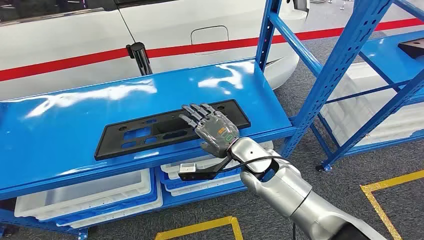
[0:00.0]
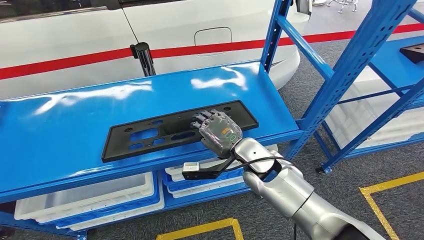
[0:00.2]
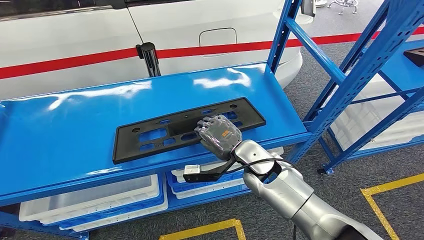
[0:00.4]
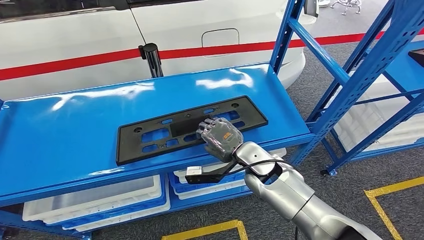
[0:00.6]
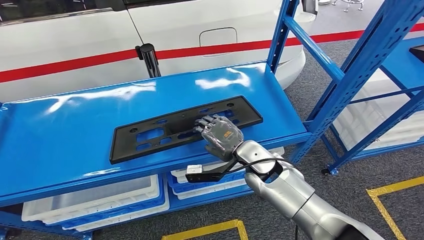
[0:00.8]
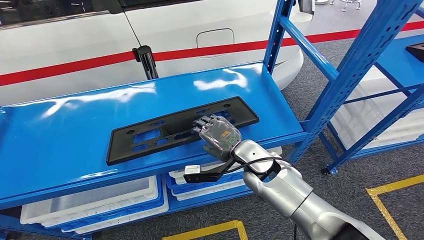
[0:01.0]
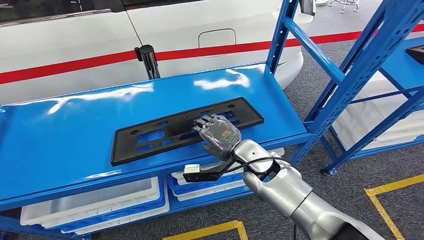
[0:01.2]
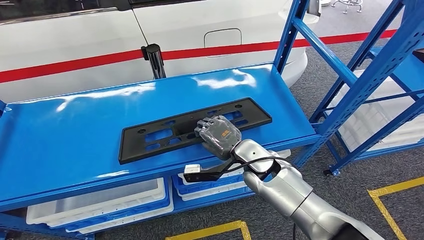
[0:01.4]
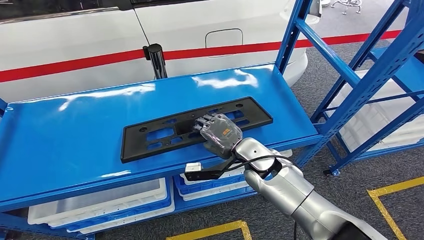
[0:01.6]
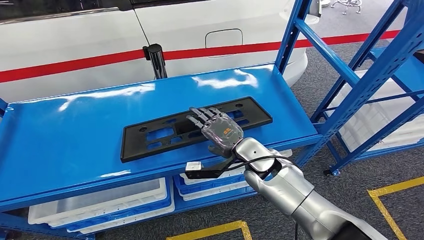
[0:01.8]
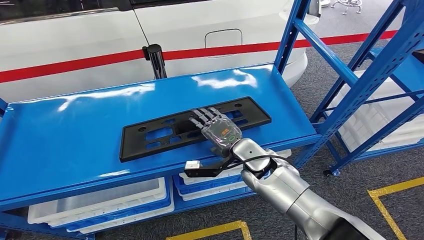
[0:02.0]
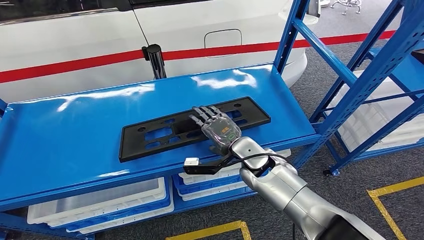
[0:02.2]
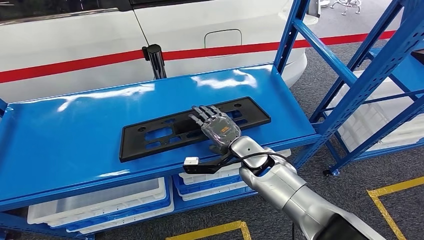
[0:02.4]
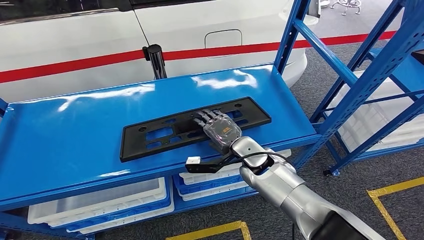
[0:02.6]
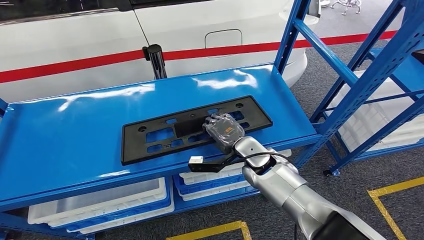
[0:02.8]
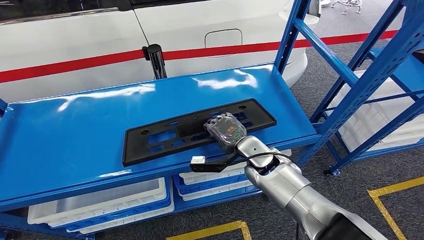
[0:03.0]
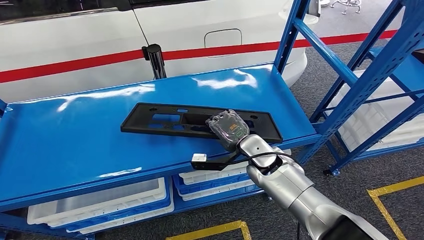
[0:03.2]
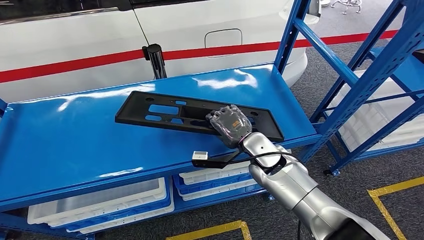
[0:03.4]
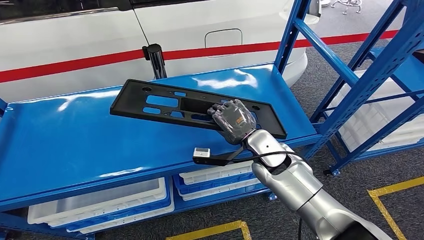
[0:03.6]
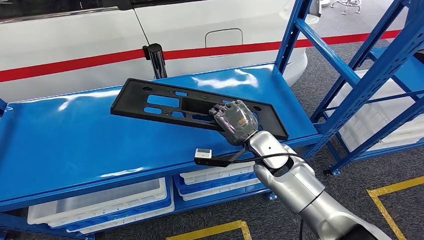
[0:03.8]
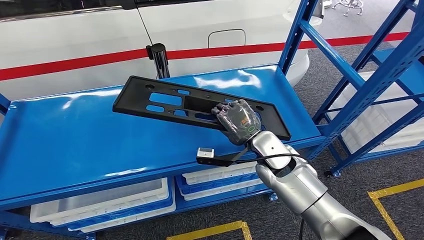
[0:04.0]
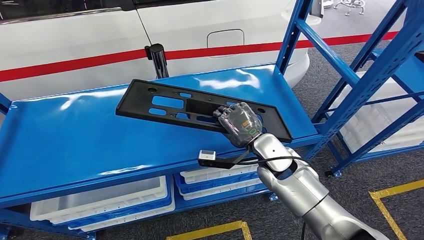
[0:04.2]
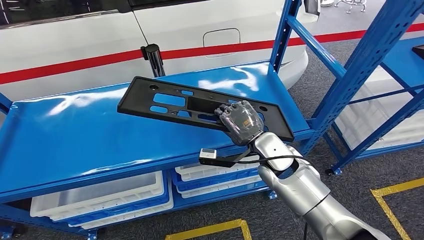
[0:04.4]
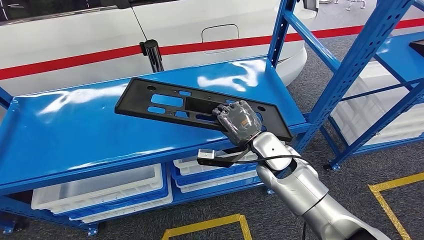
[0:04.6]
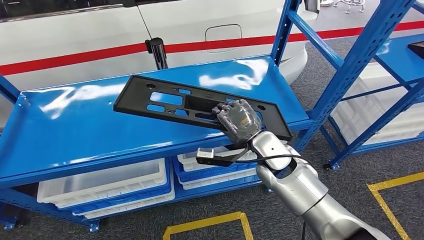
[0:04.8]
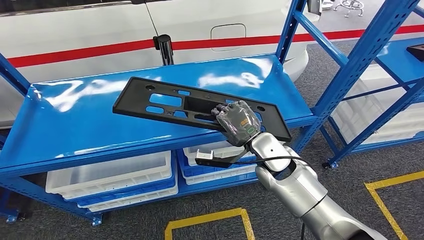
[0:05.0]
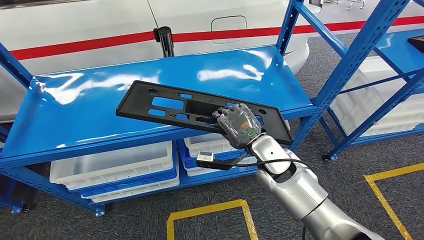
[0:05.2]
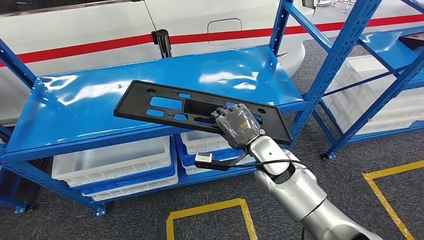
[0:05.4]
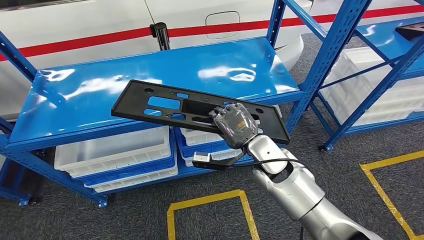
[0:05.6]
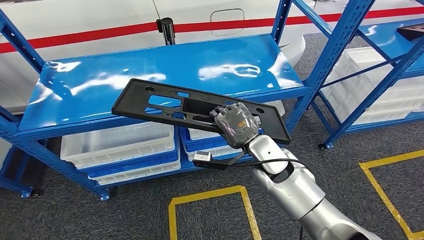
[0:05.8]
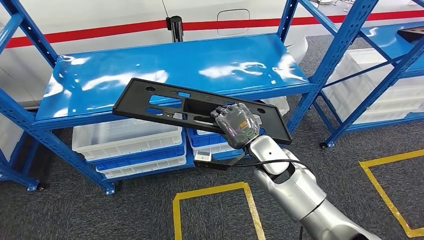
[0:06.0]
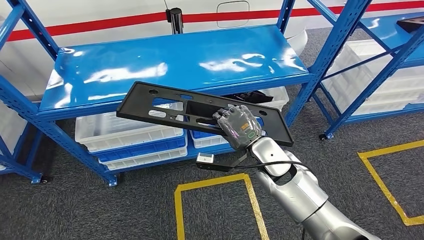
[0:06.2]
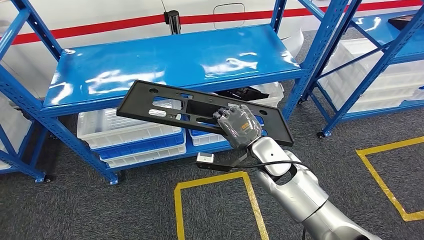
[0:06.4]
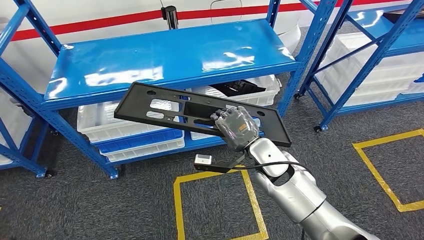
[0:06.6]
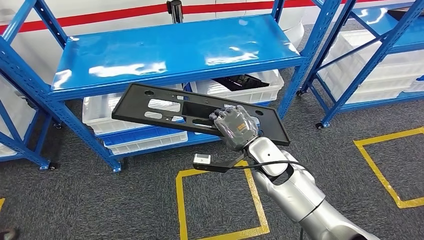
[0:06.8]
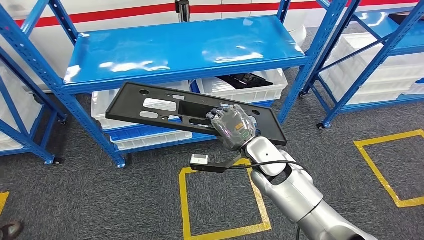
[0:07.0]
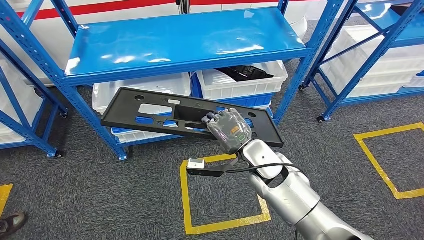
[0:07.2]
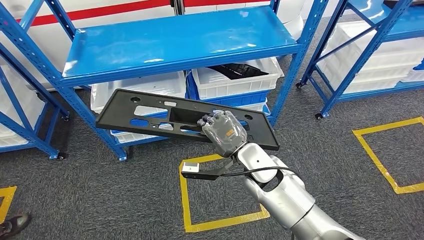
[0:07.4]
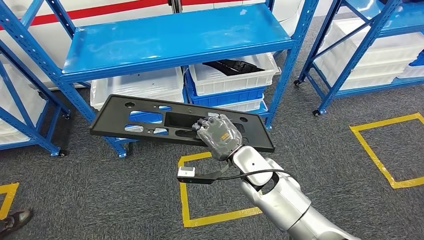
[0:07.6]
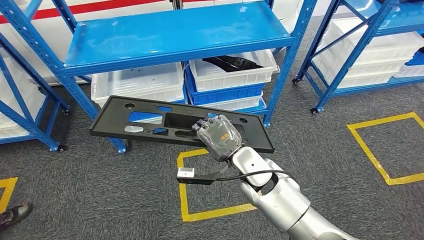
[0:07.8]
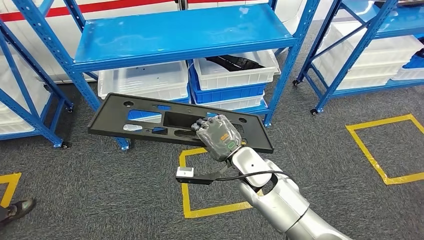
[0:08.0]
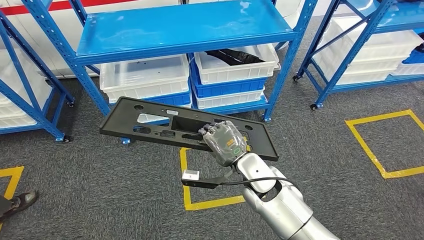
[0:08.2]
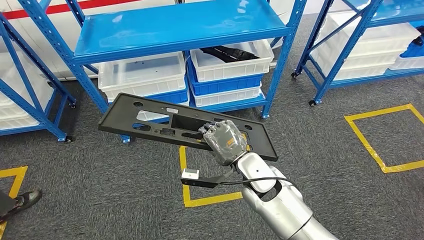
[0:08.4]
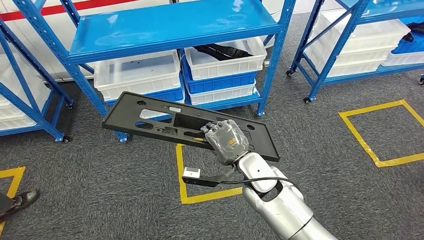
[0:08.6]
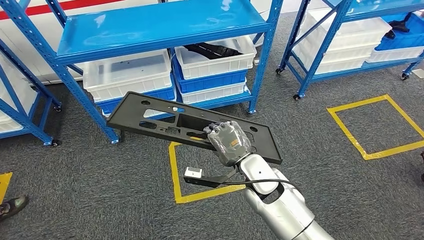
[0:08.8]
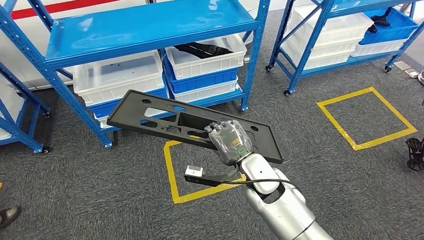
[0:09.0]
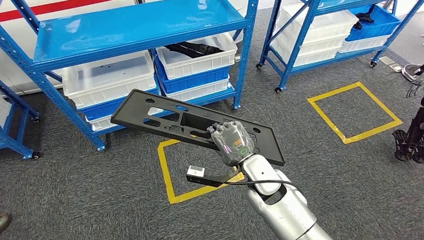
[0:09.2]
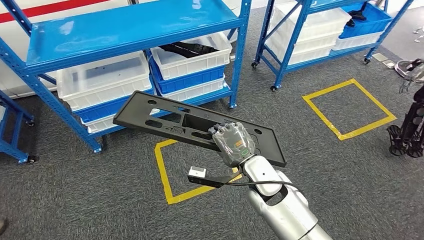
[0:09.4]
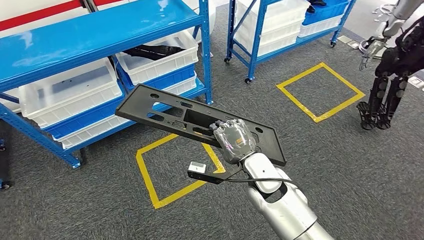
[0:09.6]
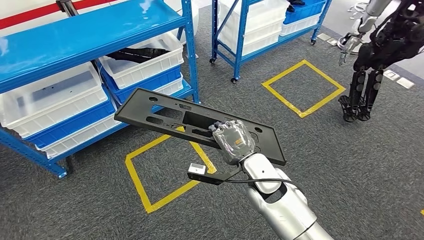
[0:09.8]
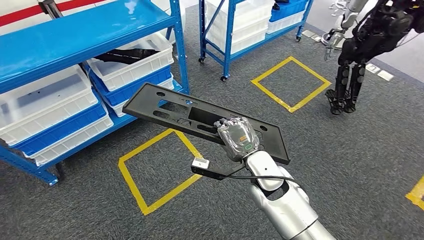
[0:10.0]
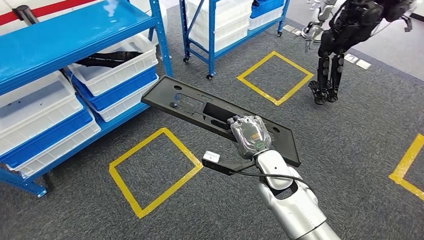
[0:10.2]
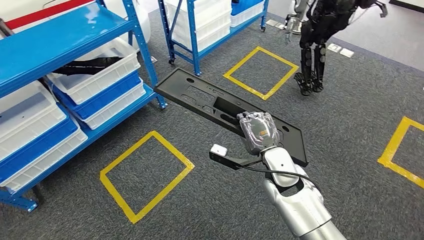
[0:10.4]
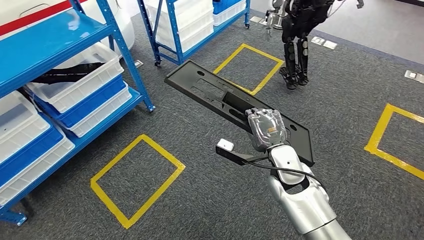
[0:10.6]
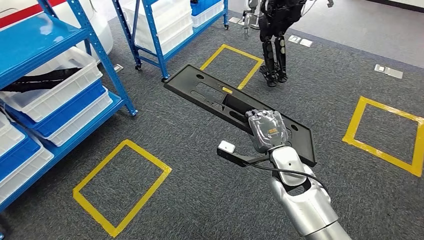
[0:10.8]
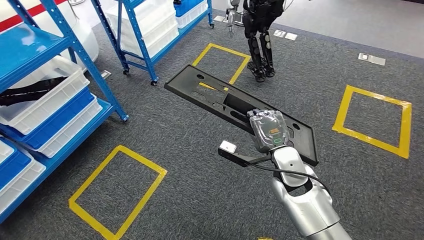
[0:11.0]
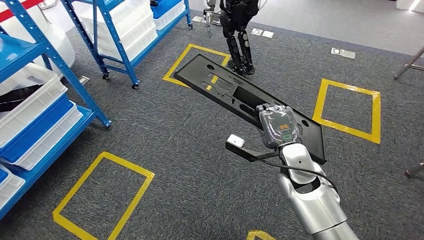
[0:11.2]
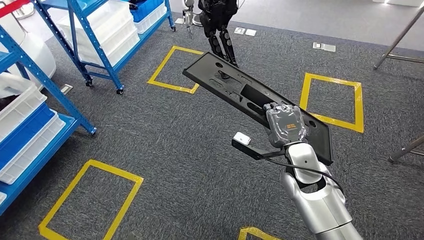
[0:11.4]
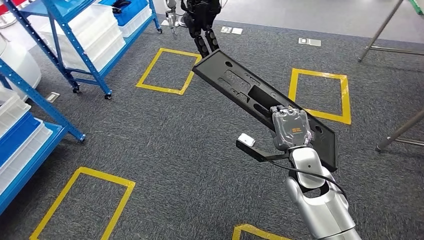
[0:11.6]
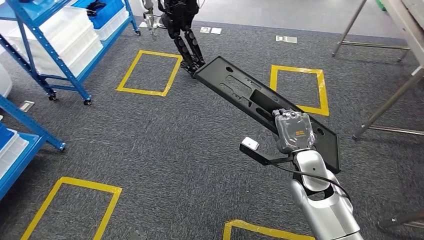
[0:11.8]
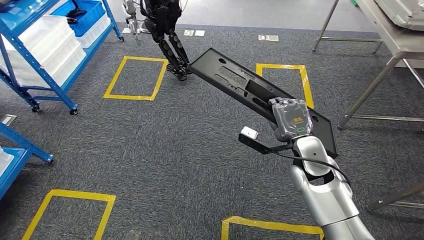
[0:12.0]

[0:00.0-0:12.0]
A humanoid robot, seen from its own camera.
Step, 0:00.0 to 0:06.0: Pick up the large material from the shelf.
0:01.6 to 0:03.0: There are only small adjustments of the hands.

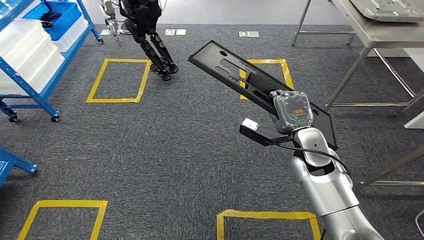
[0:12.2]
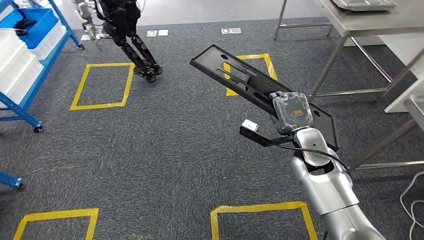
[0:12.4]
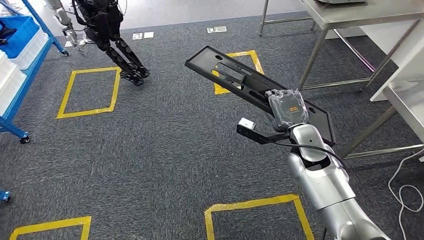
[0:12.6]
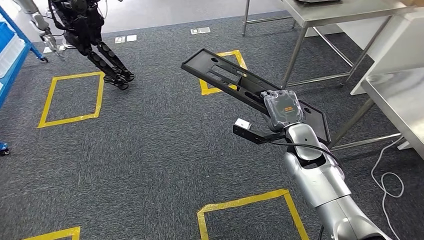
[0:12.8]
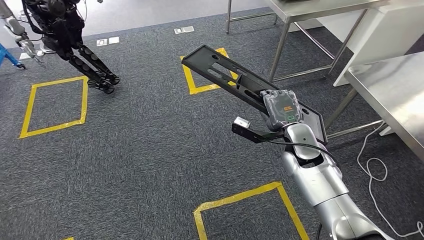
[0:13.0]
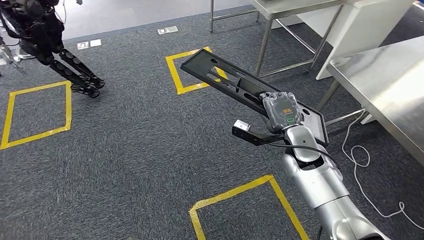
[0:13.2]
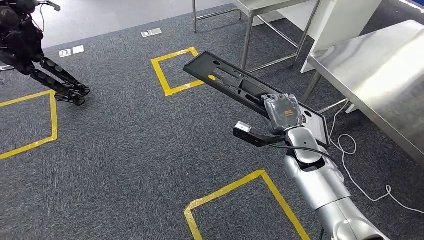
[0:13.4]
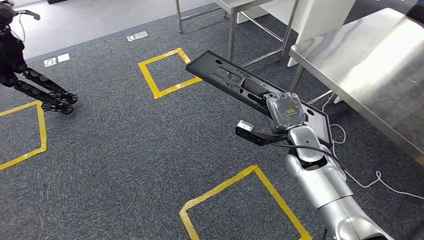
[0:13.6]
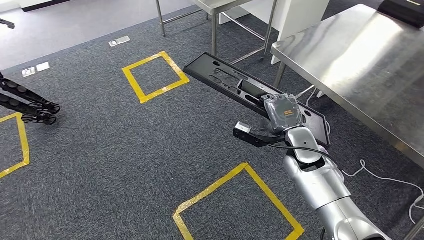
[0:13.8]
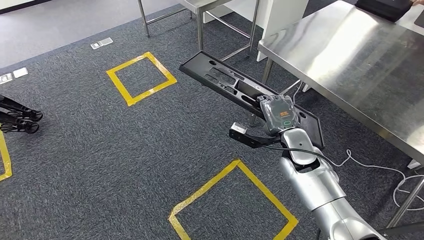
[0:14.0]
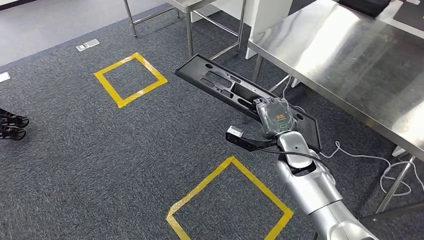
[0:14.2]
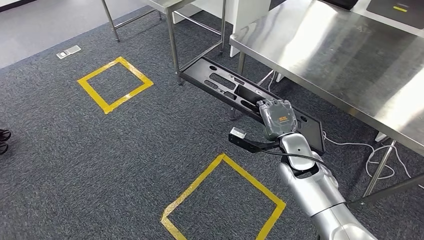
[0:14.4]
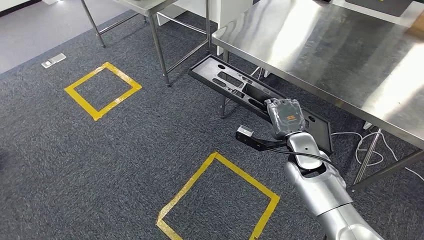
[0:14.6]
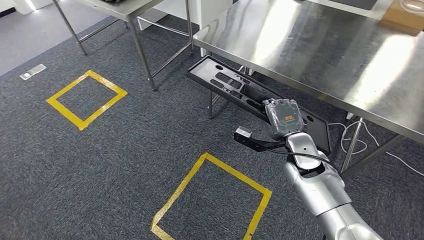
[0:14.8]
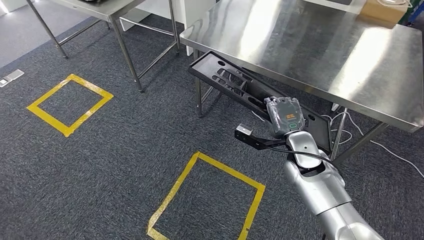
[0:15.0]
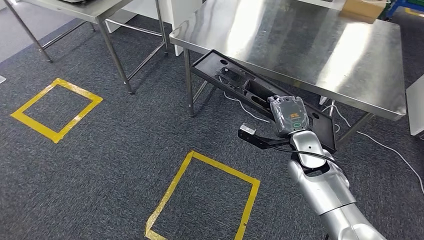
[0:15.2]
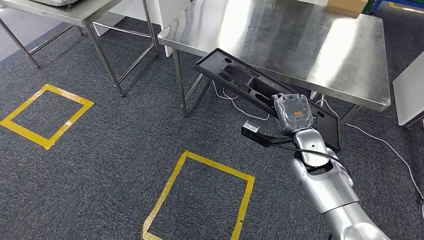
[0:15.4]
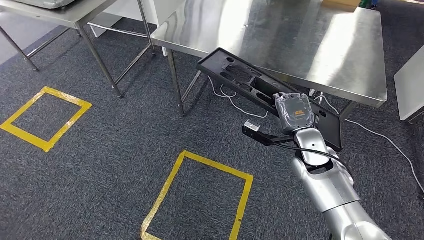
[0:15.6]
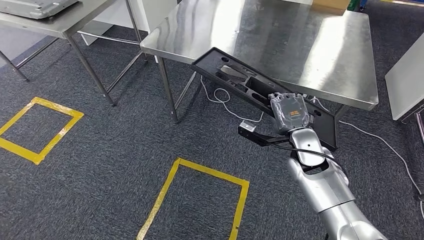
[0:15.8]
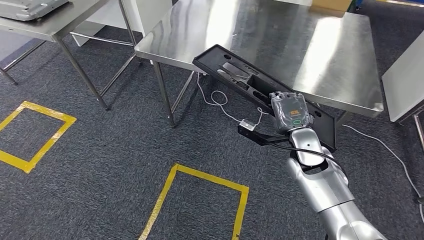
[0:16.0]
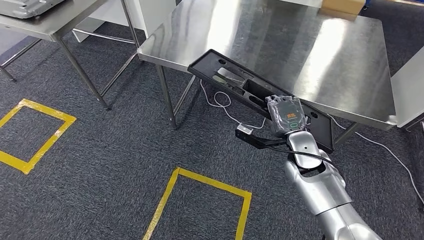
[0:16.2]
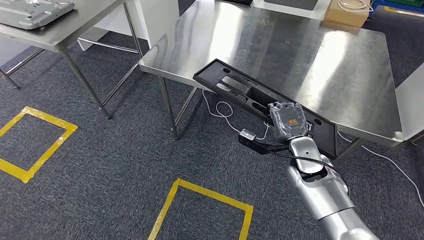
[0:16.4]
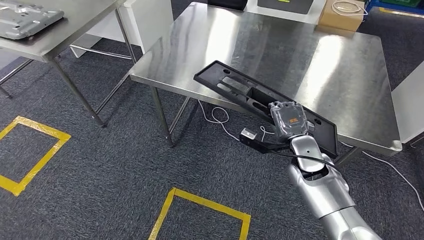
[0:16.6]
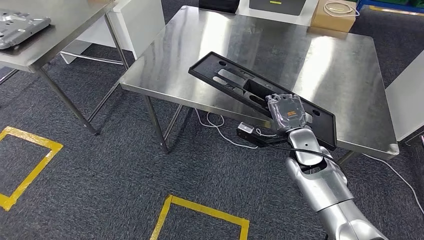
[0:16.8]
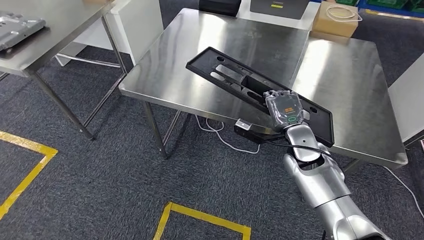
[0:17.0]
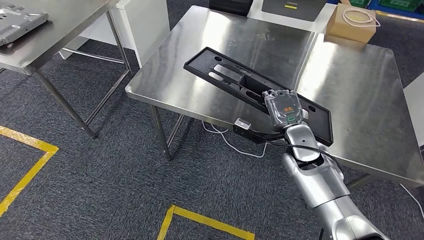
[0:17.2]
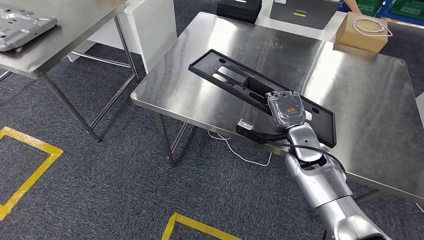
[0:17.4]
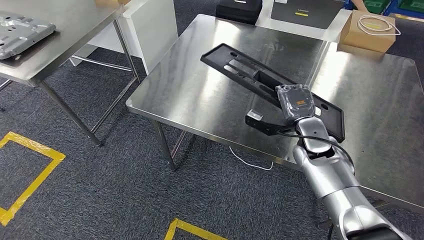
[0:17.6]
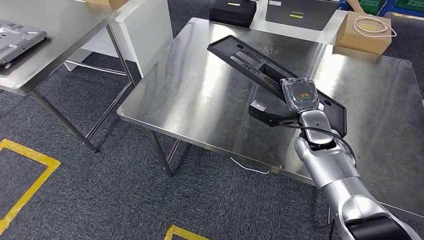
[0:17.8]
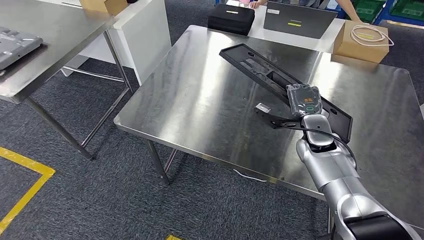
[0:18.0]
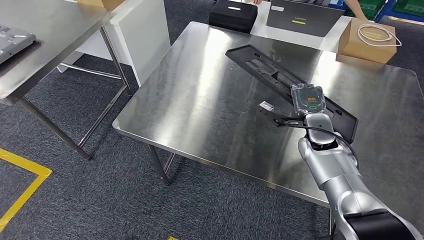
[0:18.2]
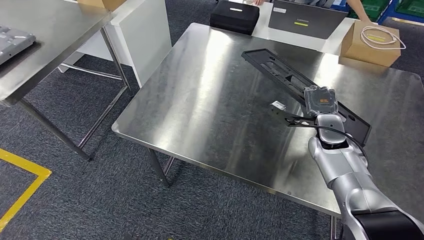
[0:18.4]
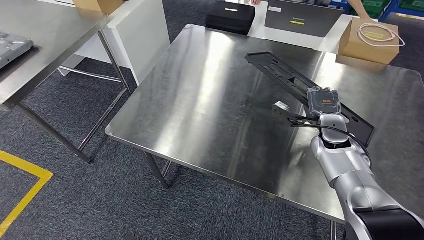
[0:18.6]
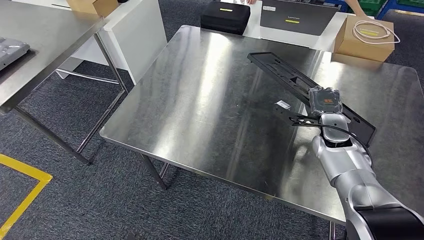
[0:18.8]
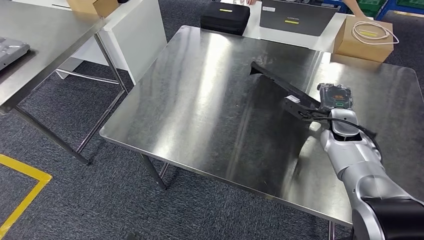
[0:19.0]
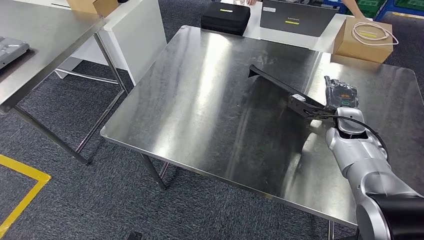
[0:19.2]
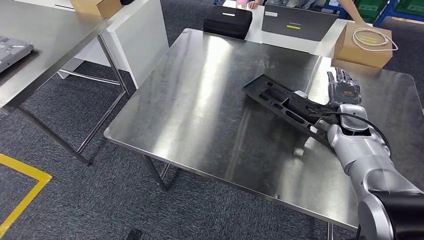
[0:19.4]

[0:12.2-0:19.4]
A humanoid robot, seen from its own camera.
Step, 0:12.2 to 0:14.8: Move the large material to the workbench.
